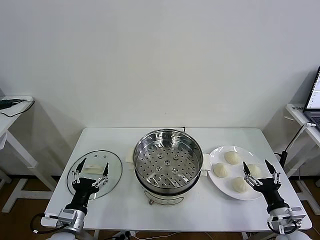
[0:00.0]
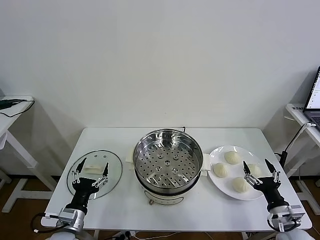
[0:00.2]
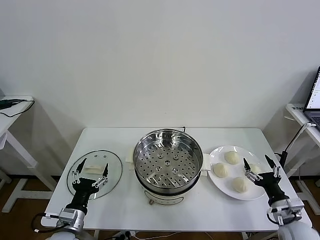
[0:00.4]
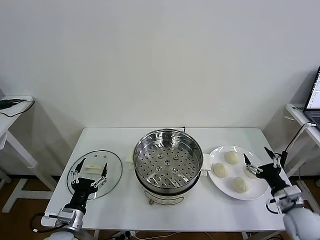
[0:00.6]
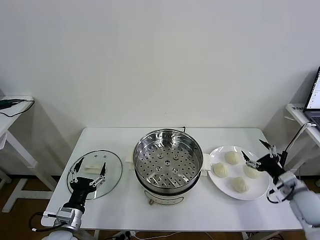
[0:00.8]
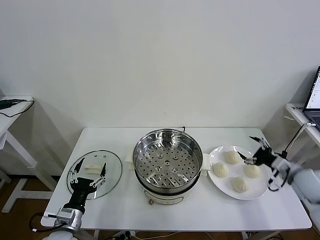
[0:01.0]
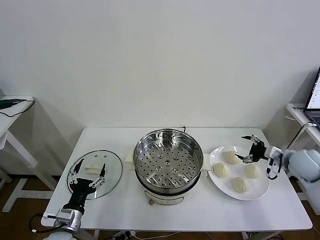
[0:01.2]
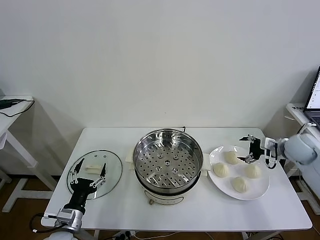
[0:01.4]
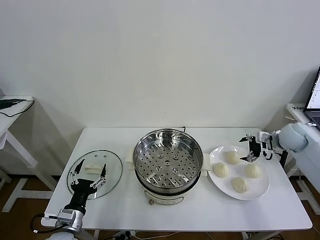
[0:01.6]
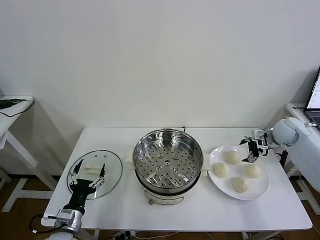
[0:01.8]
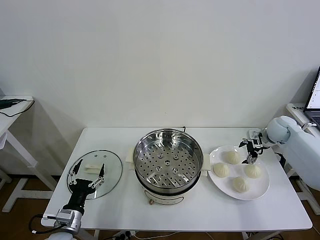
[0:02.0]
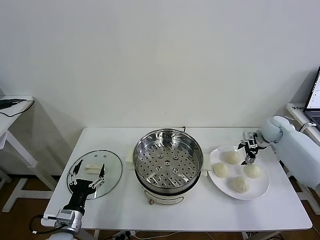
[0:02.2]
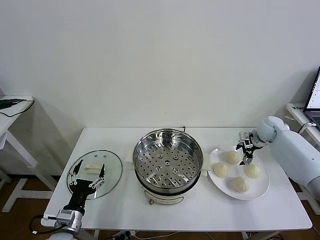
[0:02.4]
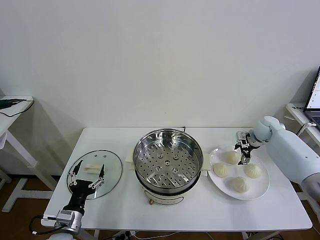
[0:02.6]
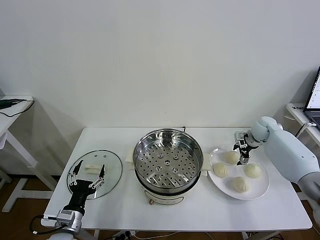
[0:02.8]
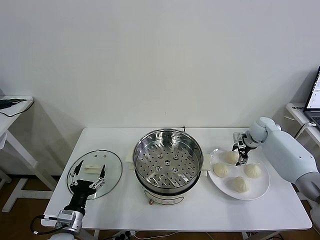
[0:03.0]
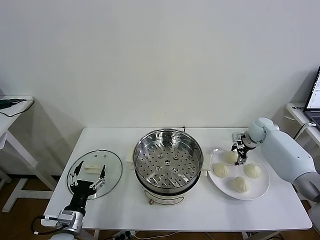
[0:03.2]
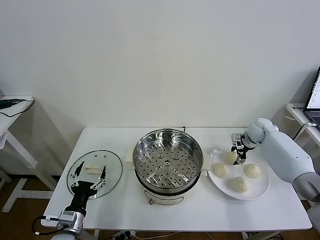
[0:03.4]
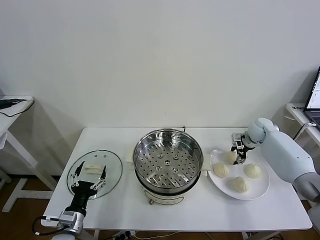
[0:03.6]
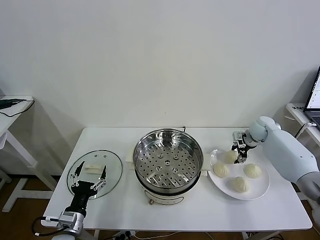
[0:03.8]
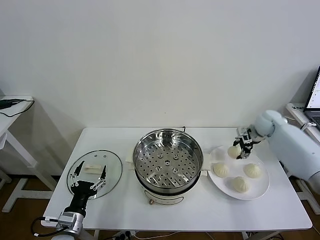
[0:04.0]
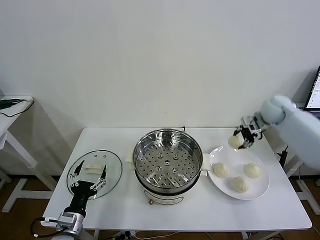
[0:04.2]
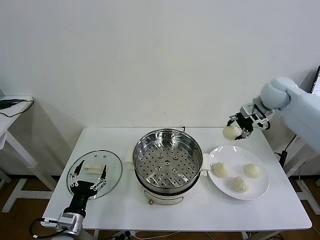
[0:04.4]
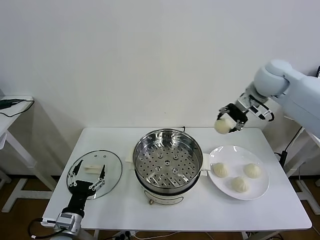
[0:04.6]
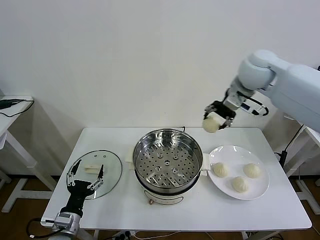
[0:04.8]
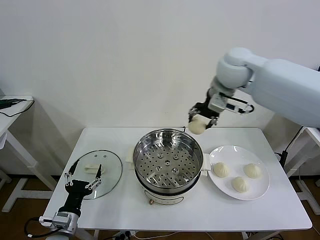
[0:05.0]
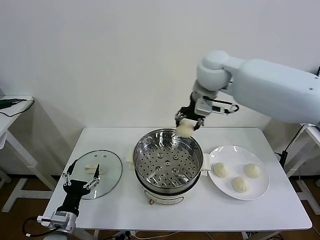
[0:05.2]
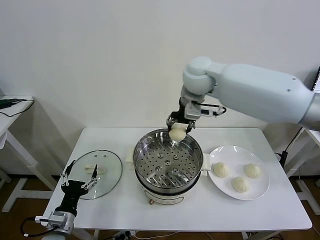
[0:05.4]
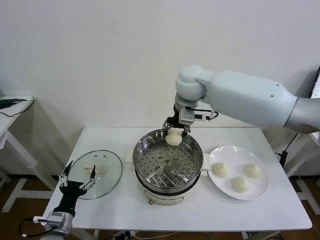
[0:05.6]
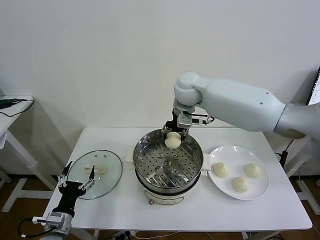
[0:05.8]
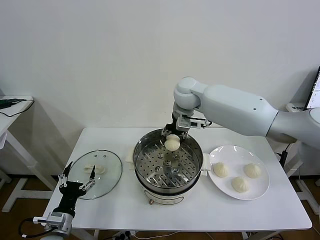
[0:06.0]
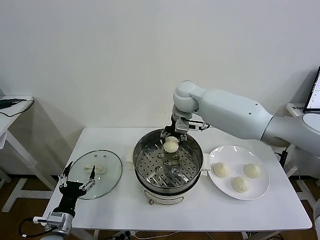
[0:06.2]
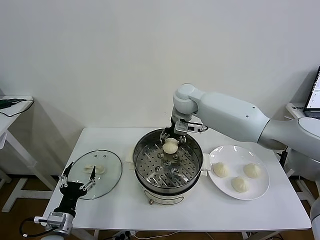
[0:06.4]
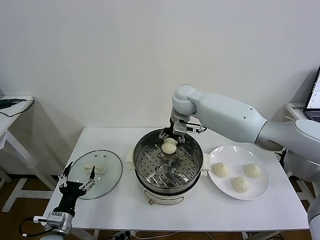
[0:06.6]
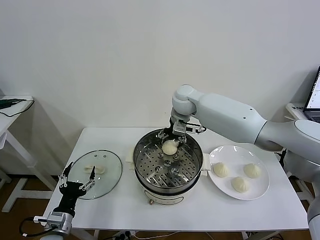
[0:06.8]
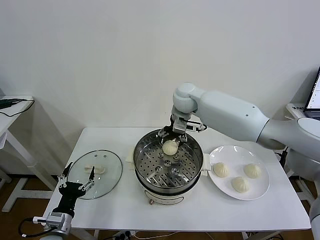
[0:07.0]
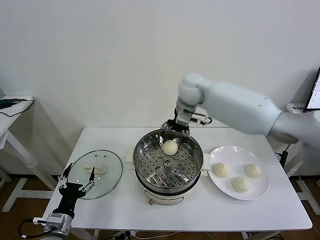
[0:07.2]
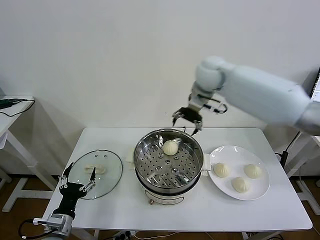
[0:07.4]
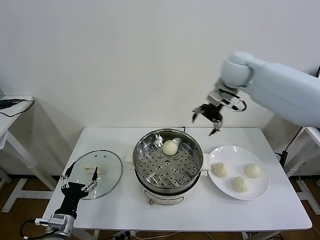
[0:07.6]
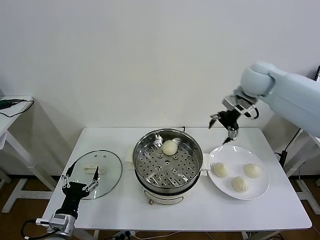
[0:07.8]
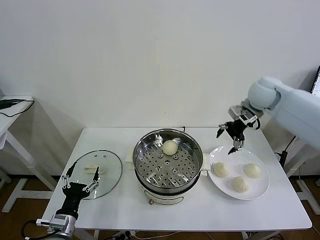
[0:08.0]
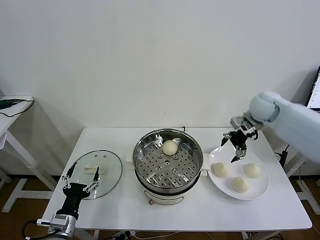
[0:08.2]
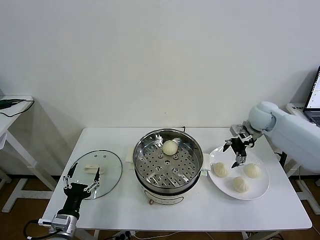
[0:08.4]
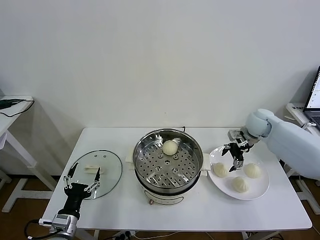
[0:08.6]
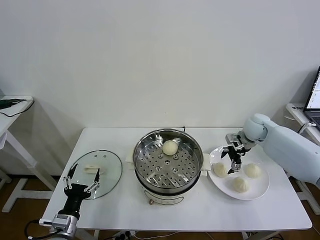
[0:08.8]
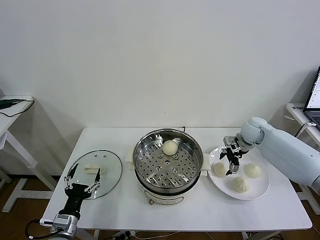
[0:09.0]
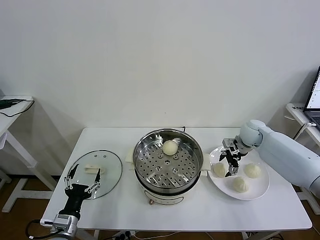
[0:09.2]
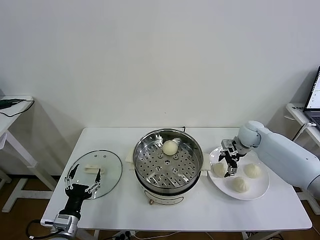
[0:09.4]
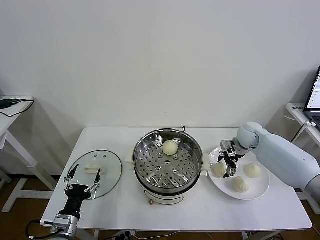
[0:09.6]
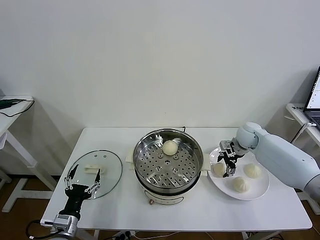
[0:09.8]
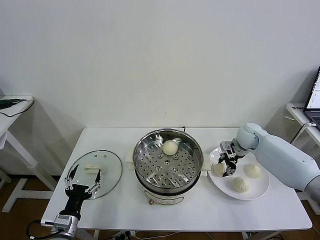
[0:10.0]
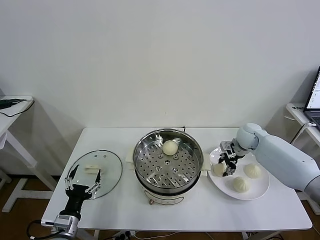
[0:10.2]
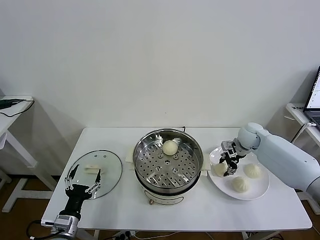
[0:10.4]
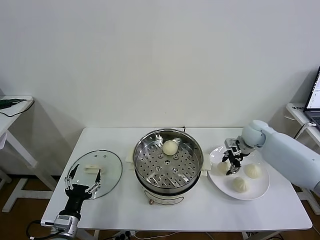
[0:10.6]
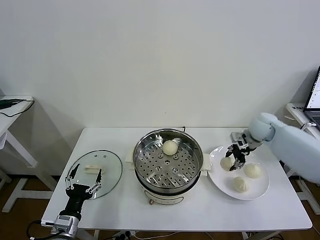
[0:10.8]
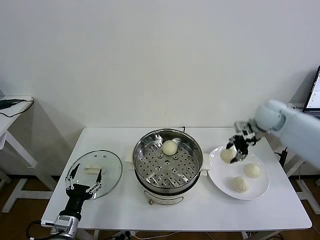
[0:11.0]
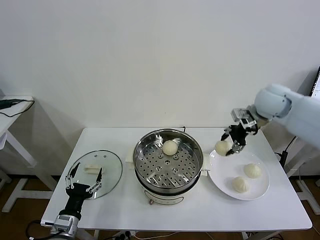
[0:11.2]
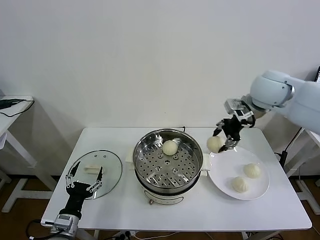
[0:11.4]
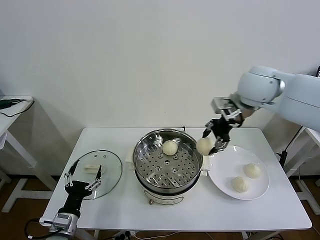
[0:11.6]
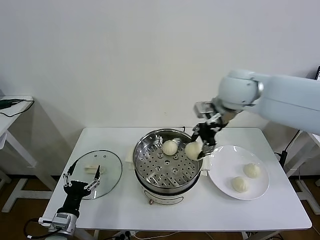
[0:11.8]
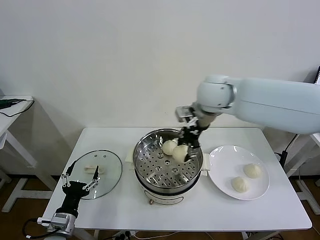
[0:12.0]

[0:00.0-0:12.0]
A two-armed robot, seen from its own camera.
Task of the whole recording: take steamed baozi put them in steamer then cover it.
Step, 0.0 to 3.2 s: Grasp the baozi in the plate with right gripper.
Step, 3.6 to 6.8 s: Place the baozi on the steamer with right gripper.
Step, 7.0 to 10.0 s: Grasp the baozi in the plate with right gripper.
1.6 to 3.0 s: The right gripper travels forward and downward by about 10 cm.
3.0 to 4.4 s: The right gripper goes roughly 25 cm upward, and closes up.
4.4 to 6.0 s: The right gripper moves to the left, approximately 25 cm.
6.0 to 7.6 s: The right gripper is displaced to the right and upward by roughly 20 cm, and opens its fingers.
7.6 to 9.0 s: The right gripper goes about 25 cm downward and to the right.
9.0 to 10.4 s: The right gripper closes.
10.4 to 12.0 s: The right gripper moves to the left and upward, about 30 cm.

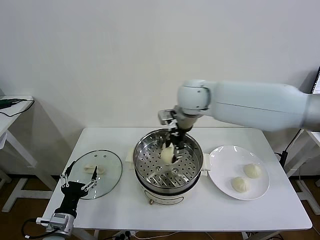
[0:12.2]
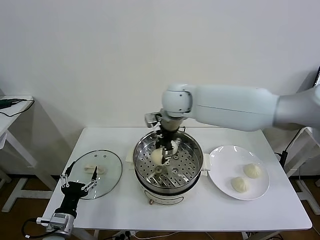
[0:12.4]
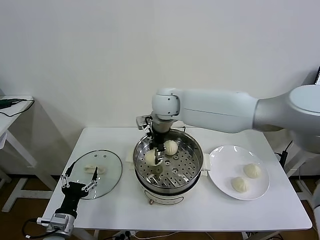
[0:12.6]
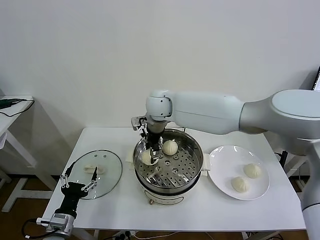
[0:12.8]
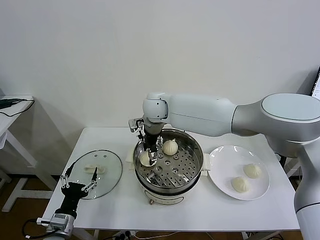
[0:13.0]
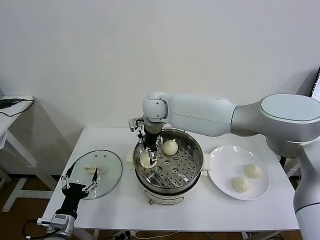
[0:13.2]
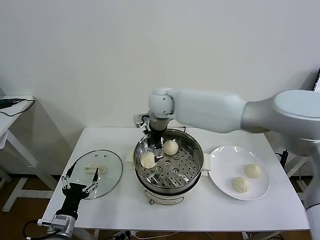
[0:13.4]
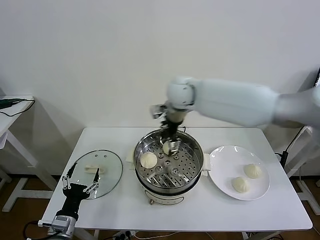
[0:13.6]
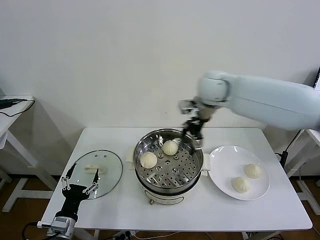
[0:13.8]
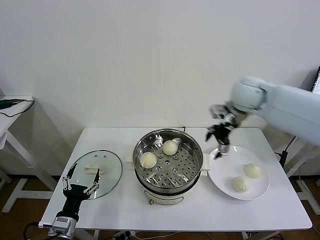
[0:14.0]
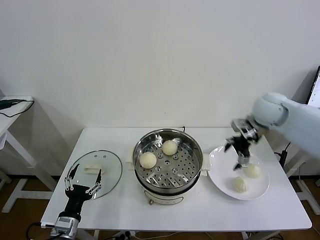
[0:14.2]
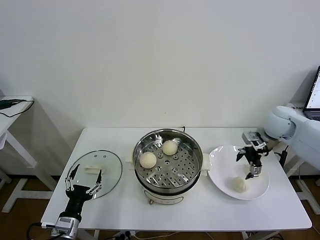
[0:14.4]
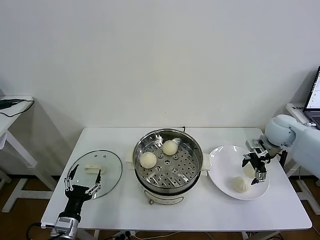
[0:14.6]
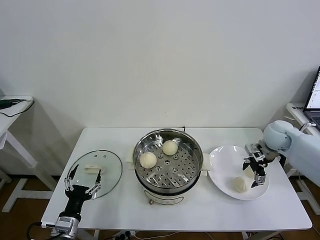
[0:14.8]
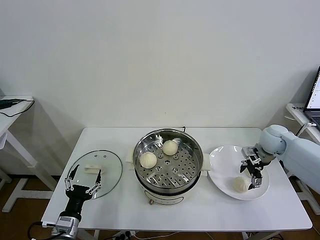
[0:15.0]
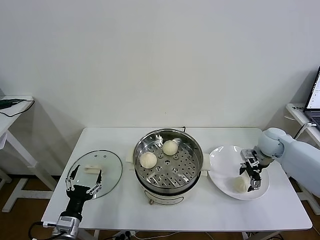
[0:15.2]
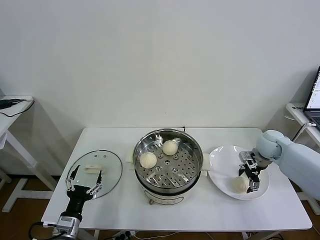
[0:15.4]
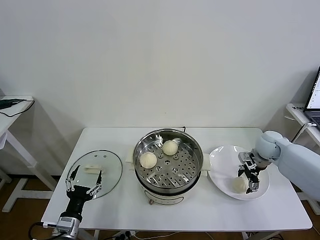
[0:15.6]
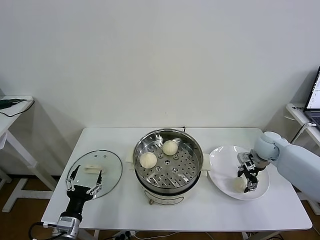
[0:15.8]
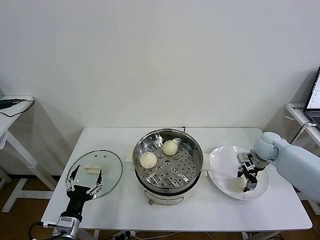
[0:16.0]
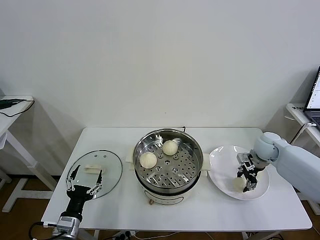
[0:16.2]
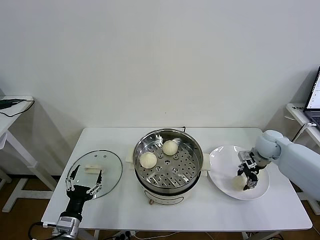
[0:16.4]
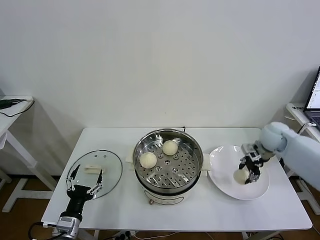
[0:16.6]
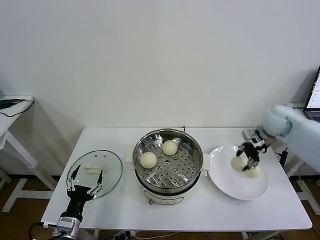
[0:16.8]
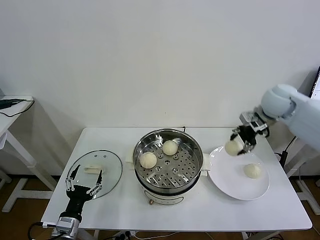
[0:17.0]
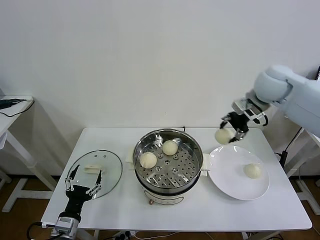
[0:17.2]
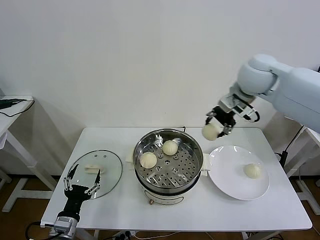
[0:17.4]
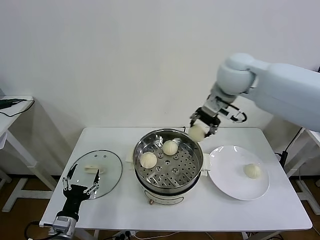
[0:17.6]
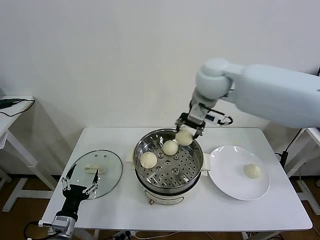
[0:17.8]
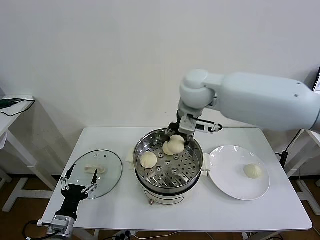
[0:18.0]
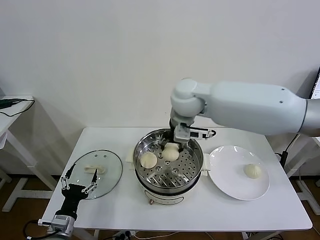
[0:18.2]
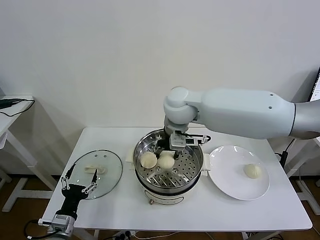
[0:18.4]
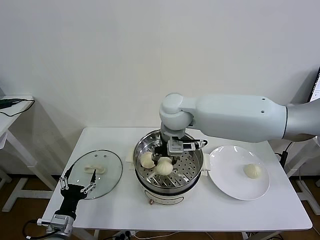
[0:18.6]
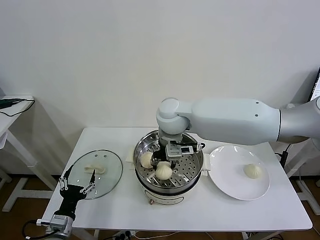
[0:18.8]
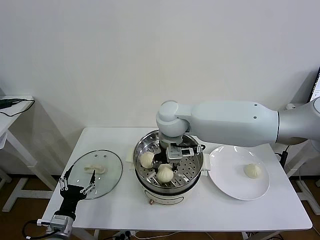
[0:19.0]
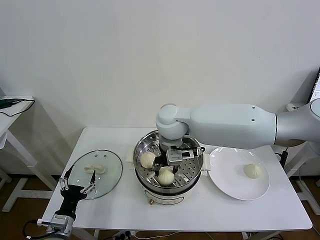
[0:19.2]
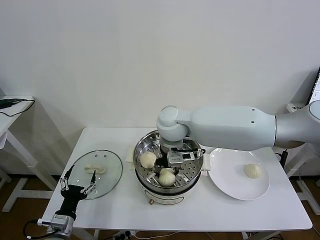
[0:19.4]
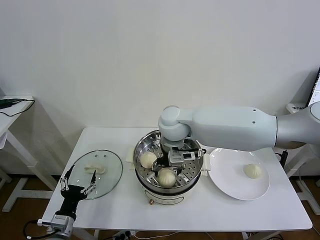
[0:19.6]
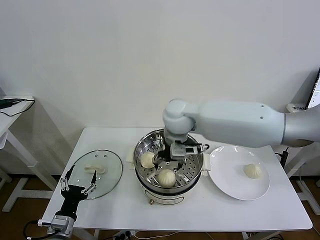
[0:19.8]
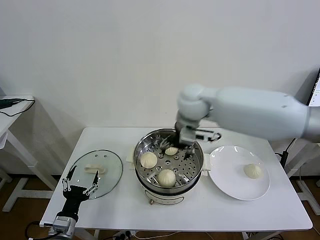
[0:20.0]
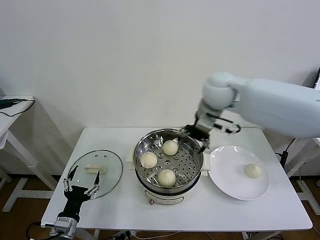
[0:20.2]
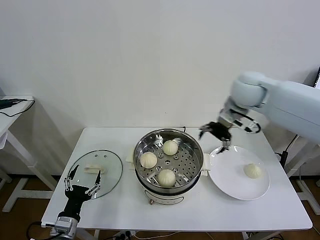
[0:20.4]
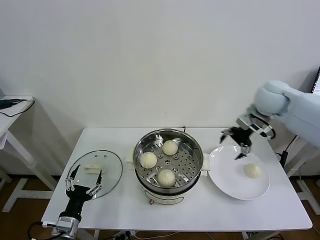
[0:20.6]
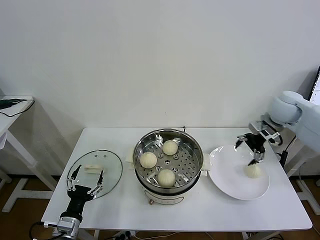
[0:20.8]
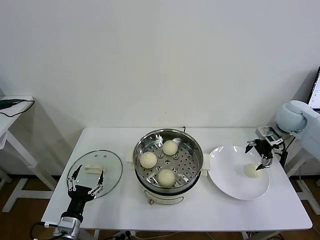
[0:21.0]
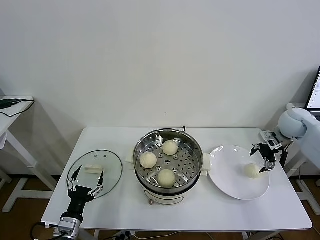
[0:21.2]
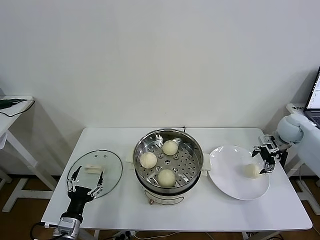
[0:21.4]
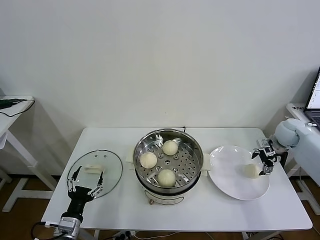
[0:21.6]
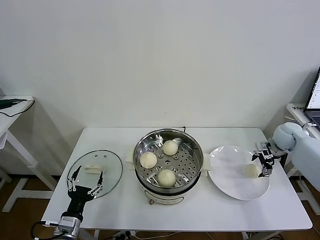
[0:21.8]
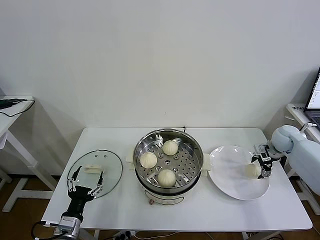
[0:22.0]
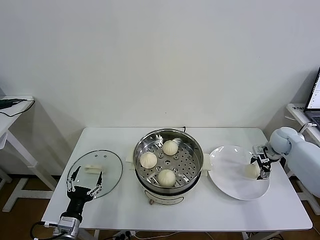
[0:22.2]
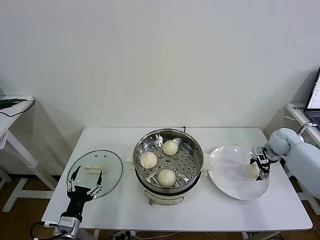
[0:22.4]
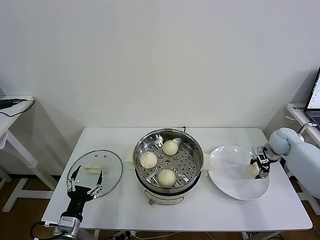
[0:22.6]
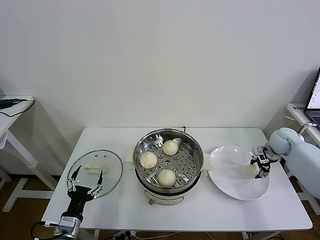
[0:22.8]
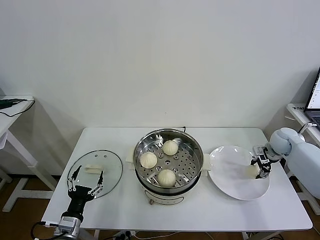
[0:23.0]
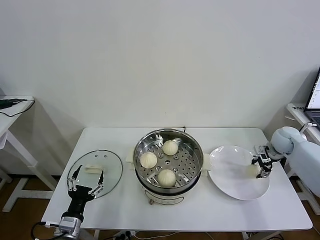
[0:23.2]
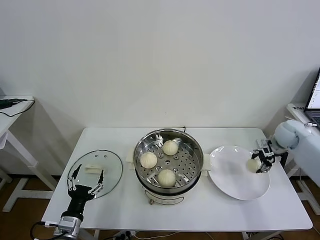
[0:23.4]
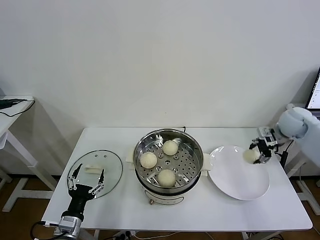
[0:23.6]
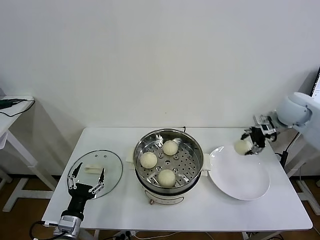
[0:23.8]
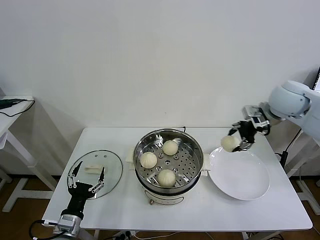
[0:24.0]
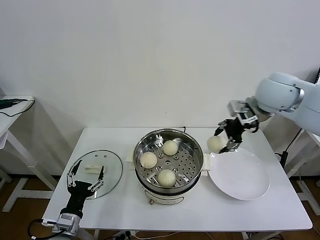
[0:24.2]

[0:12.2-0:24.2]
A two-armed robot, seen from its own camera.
Task of the whole recording: take steamed baozi put them in steamer then cover it.
Step, 13.4 to 15.8 s: Grasp the baozi in the plate with right gripper.
Step, 16.2 to 19.6 s: Place the baozi on the steamer with right gripper.
Step, 19.8 to 22.6 s: Grasp the baozi in the plate with right gripper.
12.2 to 13.8 s: The right gripper shifts about 10 cm to the right, and opens.
13.8 to 15.2 s: The right gripper shifts some 30 cm to the right and downward.
15.2 to 16.6 s: The right gripper closes its fingers.
16.6 to 18.2 s: The right gripper shifts roughly 35 cm to the left and upward.
18.2 to 19.8 s: The right gripper opens up.
19.8 to 21.2 s: The right gripper shifts about 40 cm to the right.
21.2 to 22.6 s: The right gripper shifts about 10 cm downward, and closes up.
22.6 to 24.2 s: The right gripper shifts some 30 cm upward and to the left.
